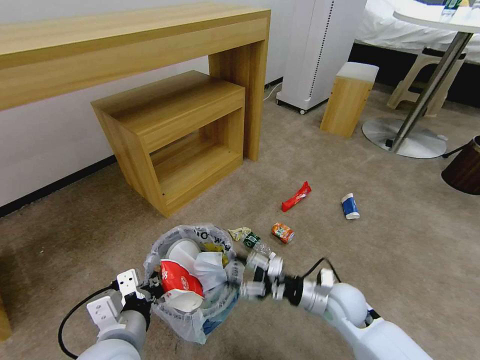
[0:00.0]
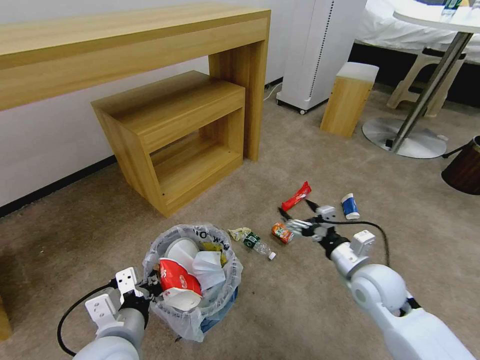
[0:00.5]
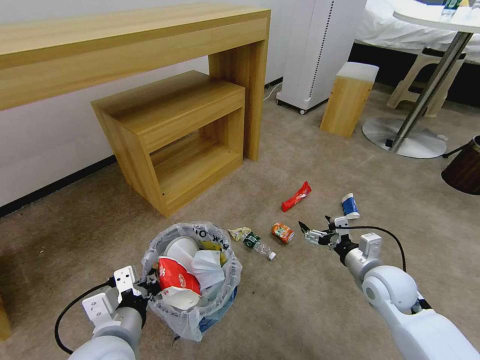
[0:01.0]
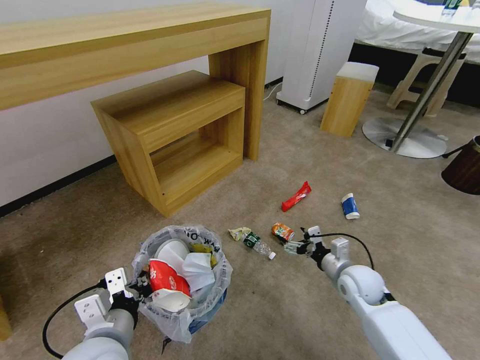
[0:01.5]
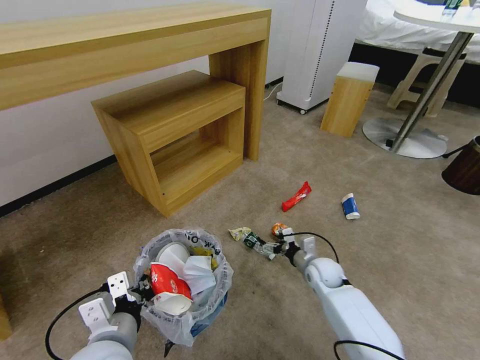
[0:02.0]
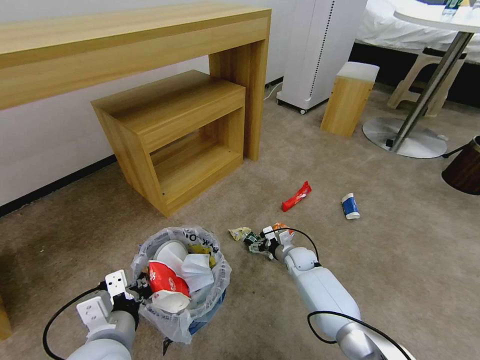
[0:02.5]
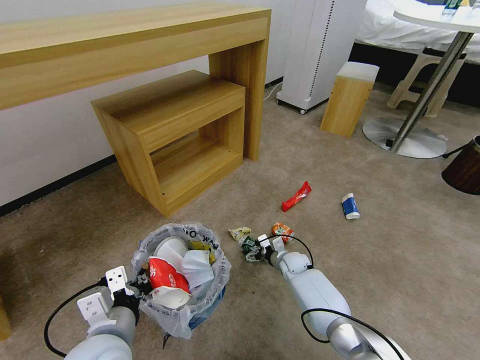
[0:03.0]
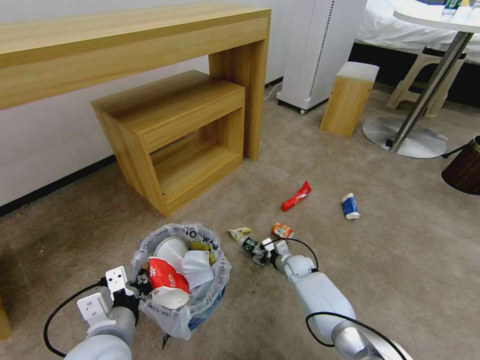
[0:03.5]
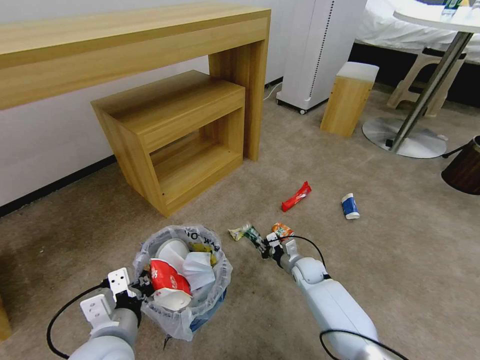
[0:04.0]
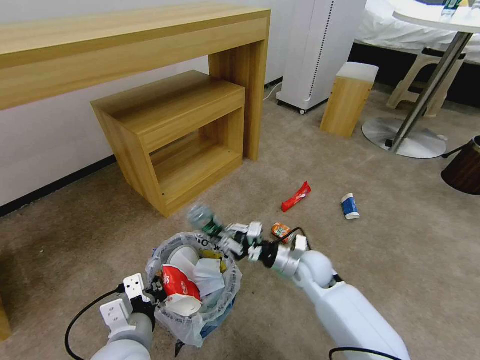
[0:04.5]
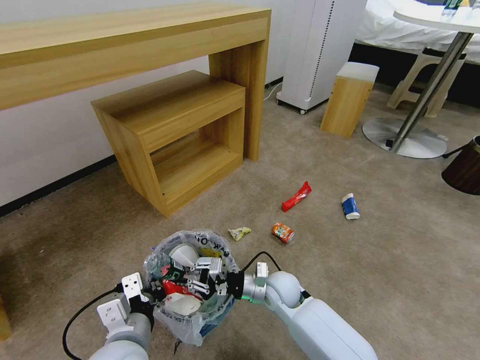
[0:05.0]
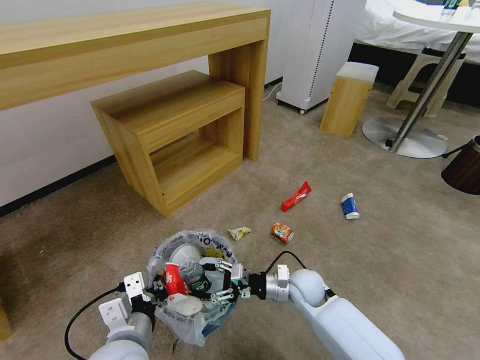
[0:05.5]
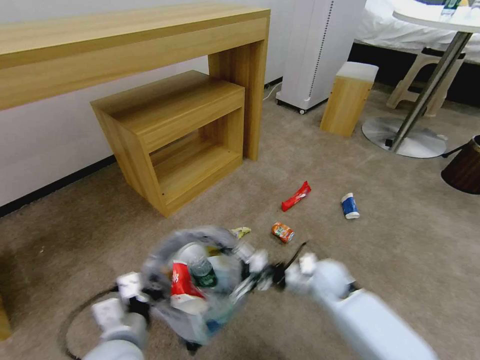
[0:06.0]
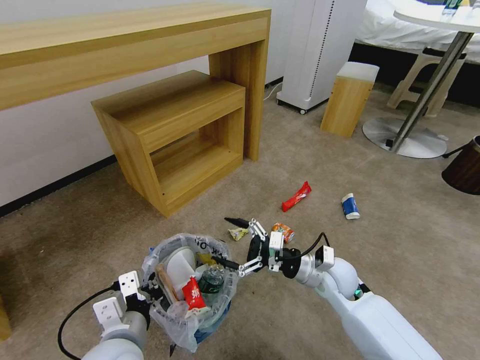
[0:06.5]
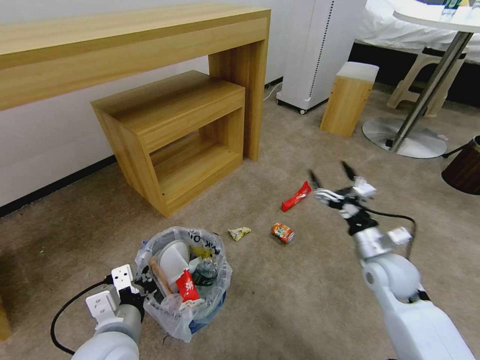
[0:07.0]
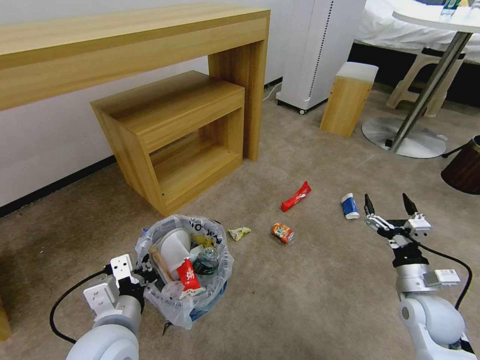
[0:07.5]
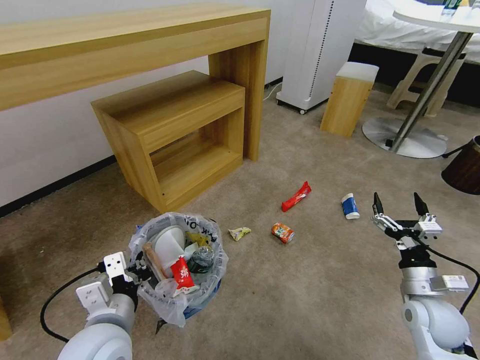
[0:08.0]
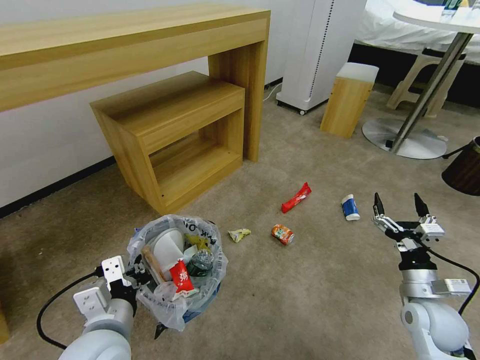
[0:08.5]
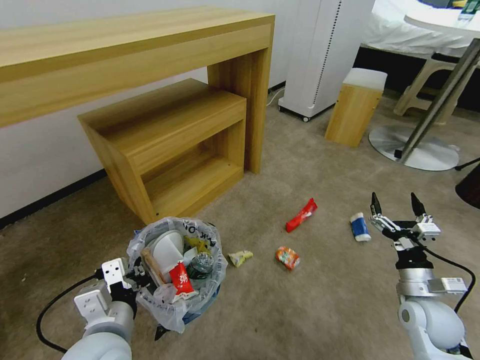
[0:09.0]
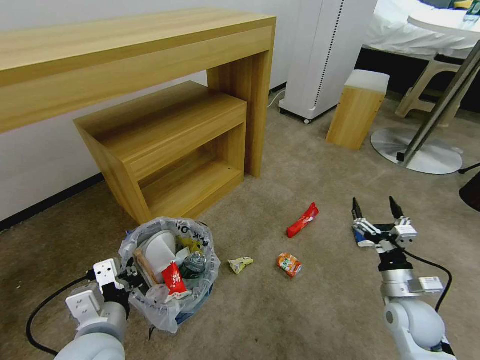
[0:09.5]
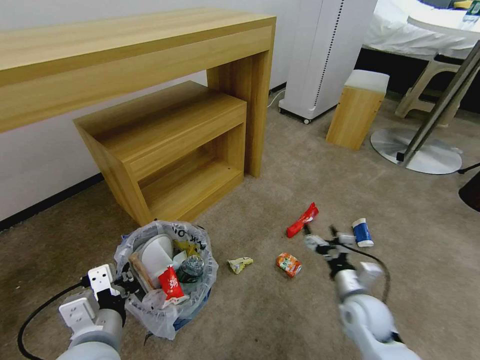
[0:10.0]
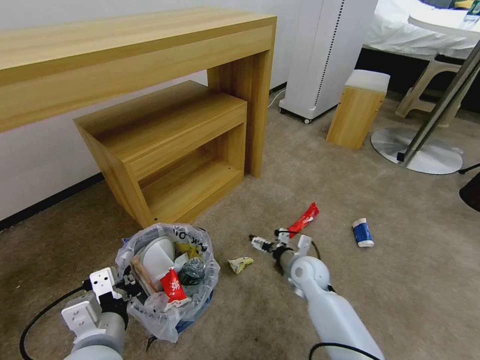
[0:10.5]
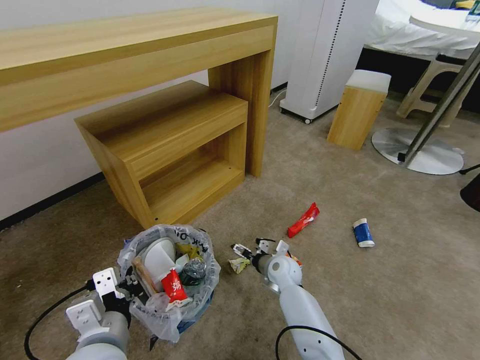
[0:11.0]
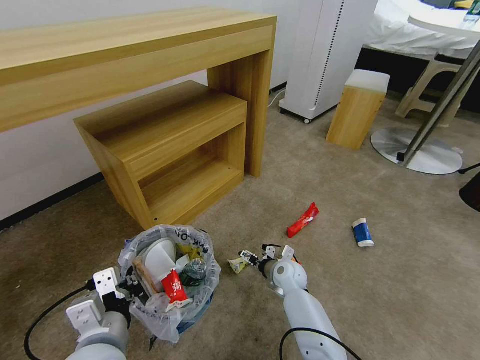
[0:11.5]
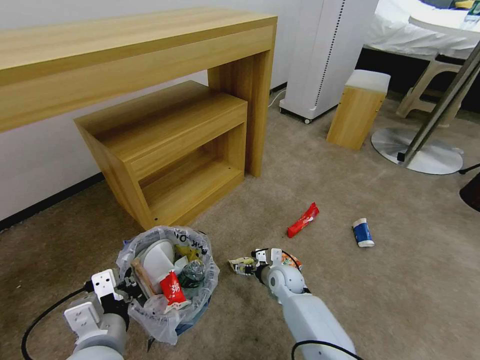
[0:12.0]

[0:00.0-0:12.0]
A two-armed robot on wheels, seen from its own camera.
Task of the whole recording: Pick up the trash bin and place the garbage on the floor into it.
0:00.0 to 0:02.0: The right gripper travels forward and downward by approximately 10 cm, and opens.
0:02.0 to 0:04.0: The right gripper heads downward, covering some 5 cm, and closes.
0:04.0 to 0:06.0: The right gripper moves up and down over some 15 cm, changing direction 2 times, and opens its fingers.
0:06.0 to 0:08.0: The right gripper travels to the right and backward by roughly 20 cm.
0:08.0 to 0:10.0: The right gripper heads to the left, covering roughly 10 cm.
0:10.0 to 0:12.0: The right gripper shifts approximately 20 cm to the left, forward and downward.

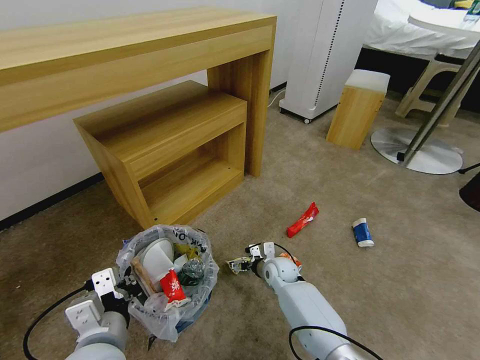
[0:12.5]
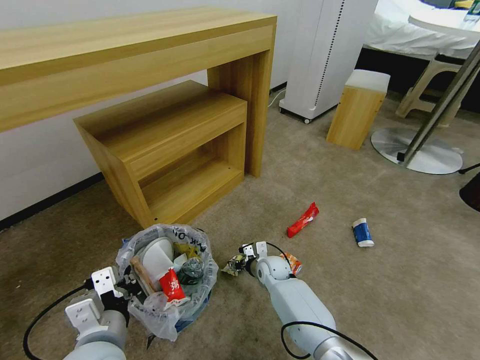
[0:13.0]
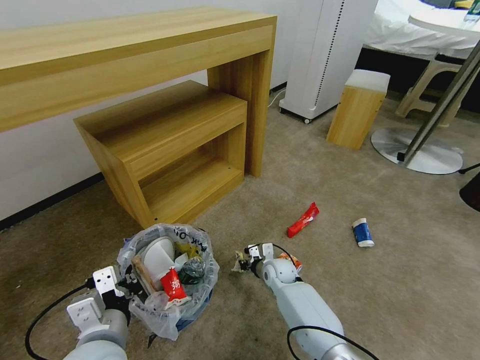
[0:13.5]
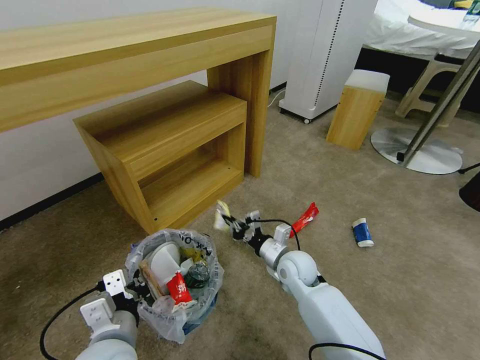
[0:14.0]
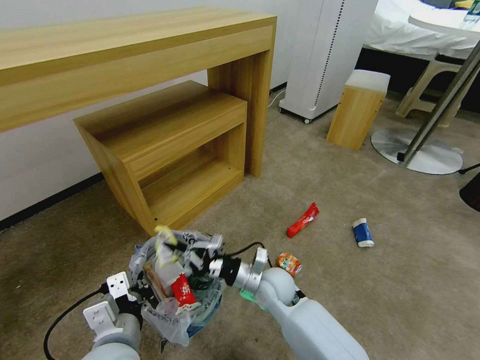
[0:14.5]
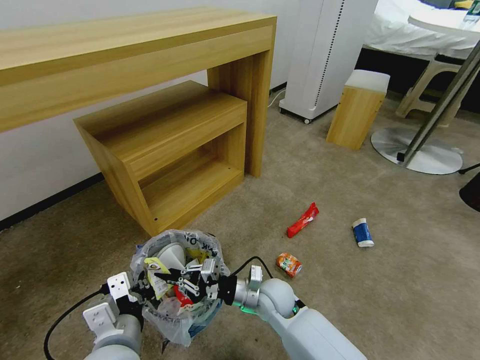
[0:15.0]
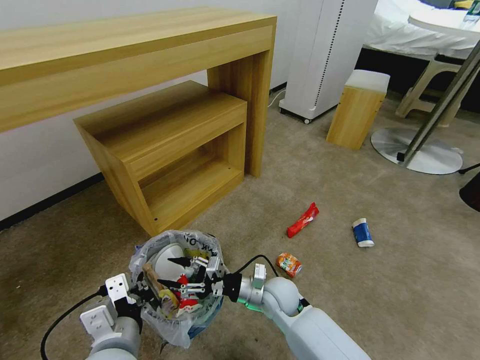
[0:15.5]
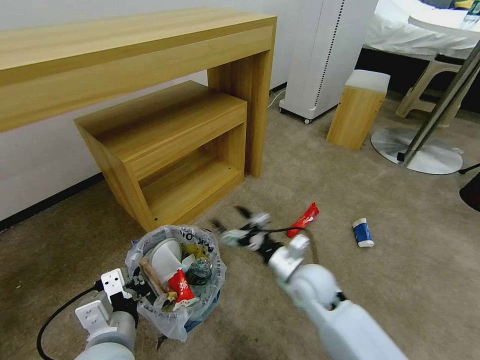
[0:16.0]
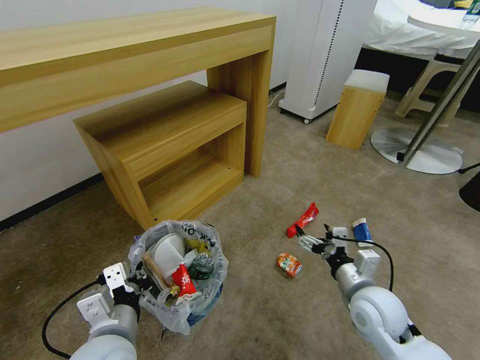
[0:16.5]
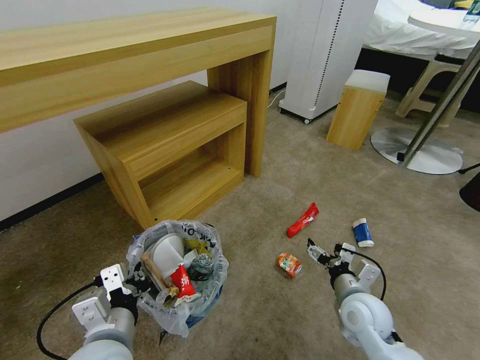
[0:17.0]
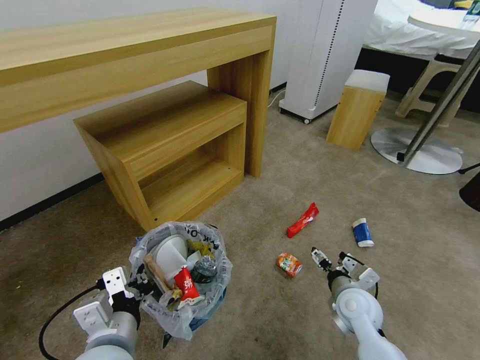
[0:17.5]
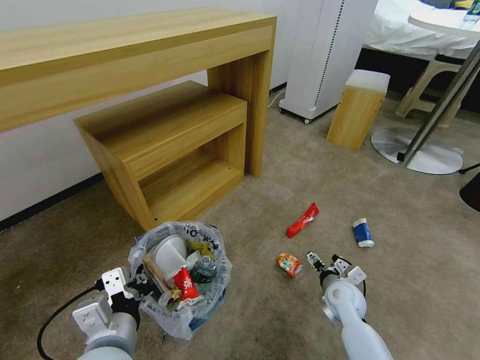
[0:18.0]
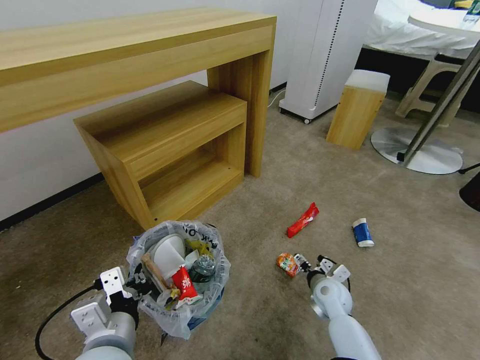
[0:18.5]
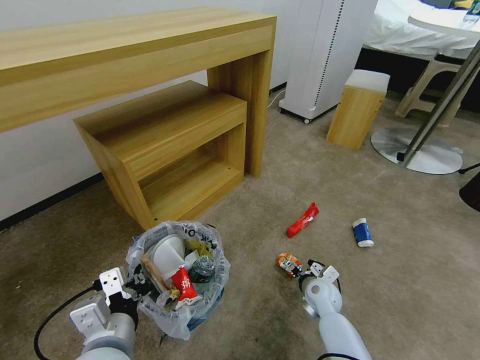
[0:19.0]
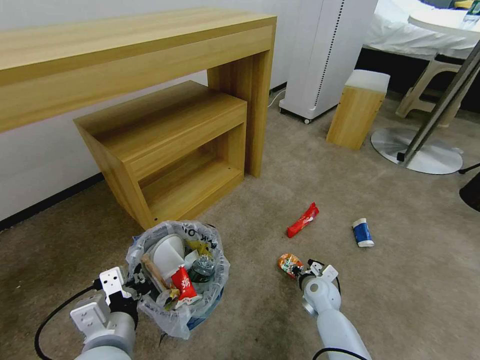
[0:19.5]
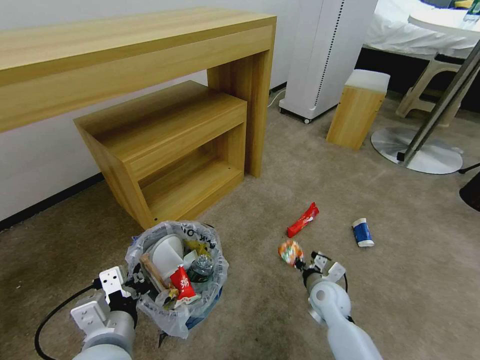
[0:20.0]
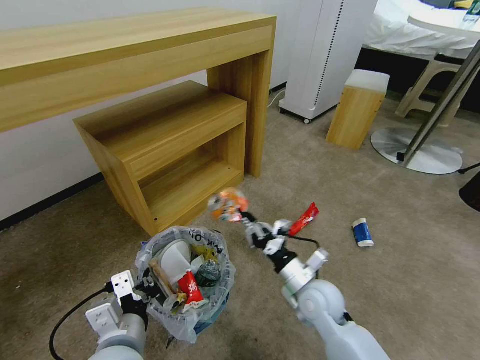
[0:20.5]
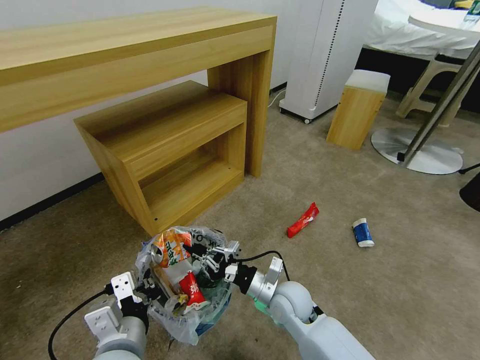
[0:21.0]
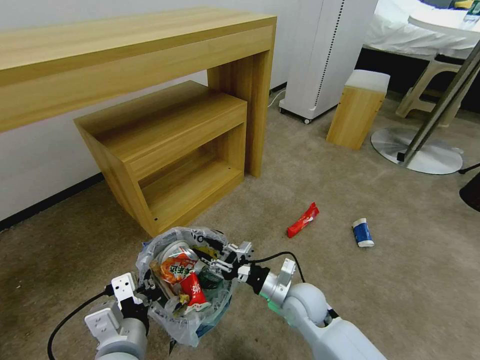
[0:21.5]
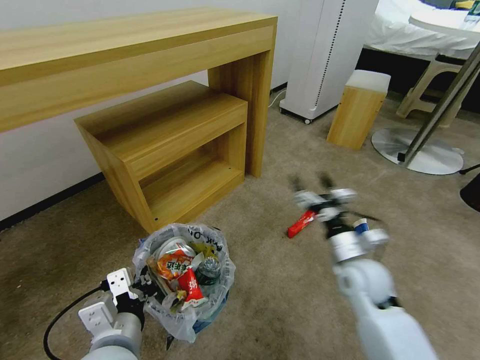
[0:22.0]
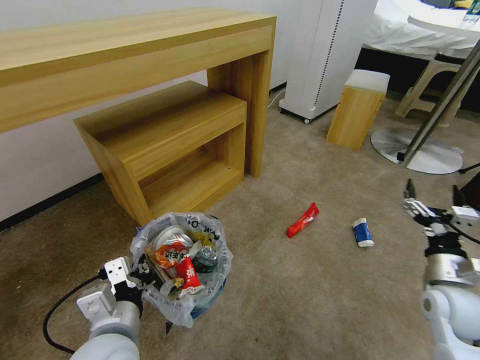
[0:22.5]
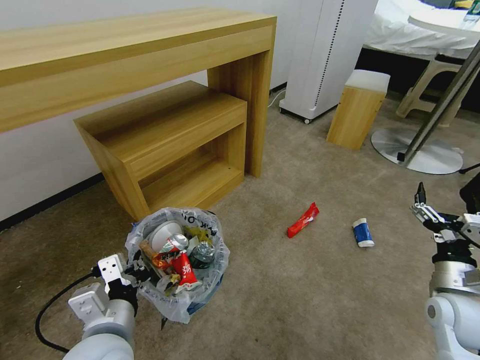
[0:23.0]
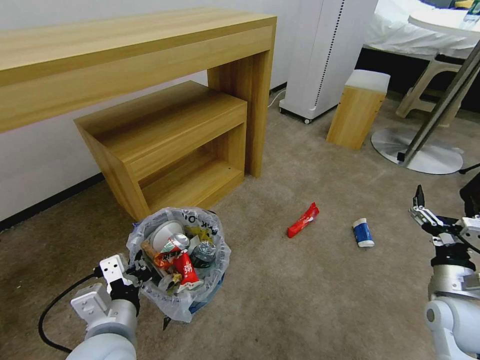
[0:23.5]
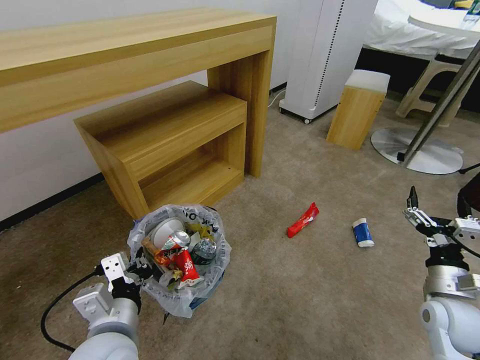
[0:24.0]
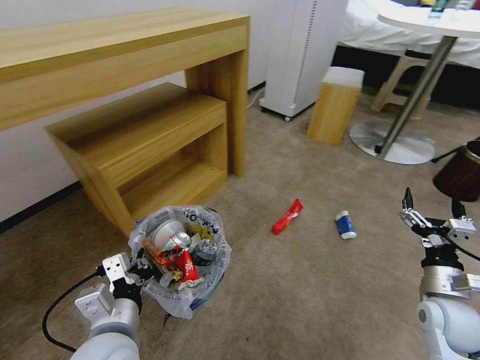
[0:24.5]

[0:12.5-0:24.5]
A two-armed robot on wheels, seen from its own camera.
Task of the whole recording: Pick up the trash bin and place the garbage on the floor into it.
0:12.5 to 0:14.5: The right gripper travels upward and backward by roughly 15 cm, and closes its fingers.
0:14.5 to 0:16.5: The right gripper travels to the right and backward by approximately 20 cm, and opens.
0:16.5 to 0:18.5: The right gripper is displaced downward and forward by some 15 cm.
0:18.5 to 0:20.5: The right gripper is displaced upward and to the left by about 10 cm, and closes up.
0:20.5 to 0:22.5: The right gripper shifts some 25 cm to the right, and opens.

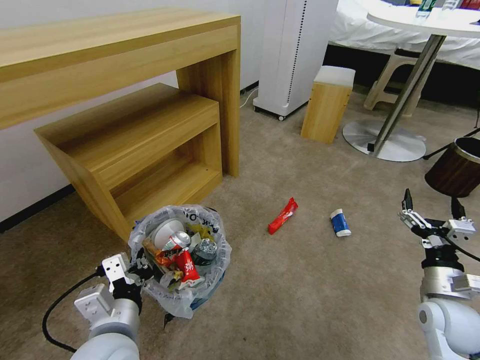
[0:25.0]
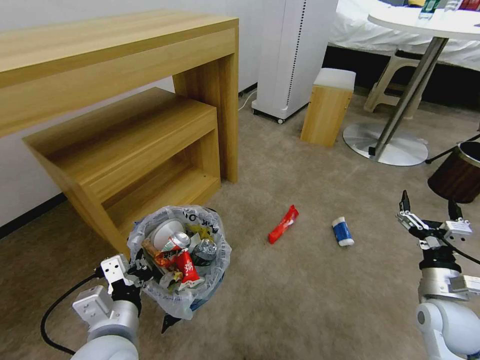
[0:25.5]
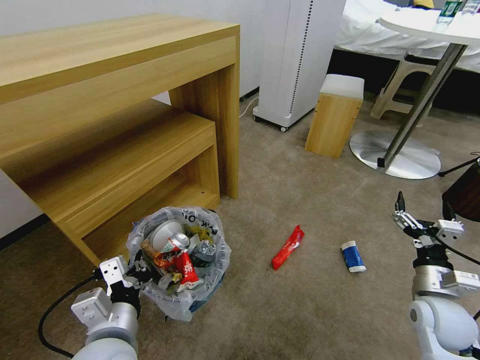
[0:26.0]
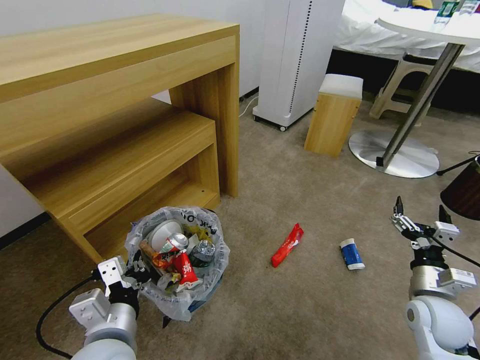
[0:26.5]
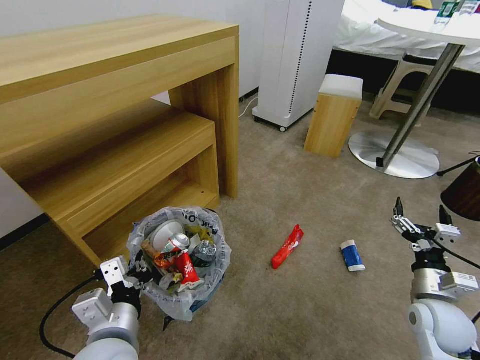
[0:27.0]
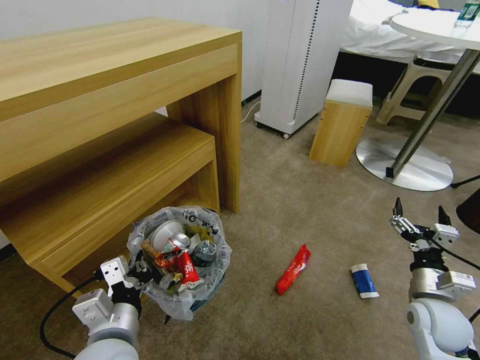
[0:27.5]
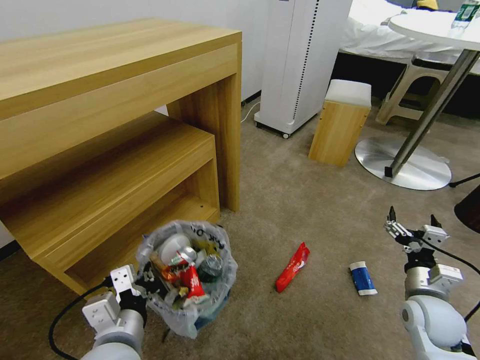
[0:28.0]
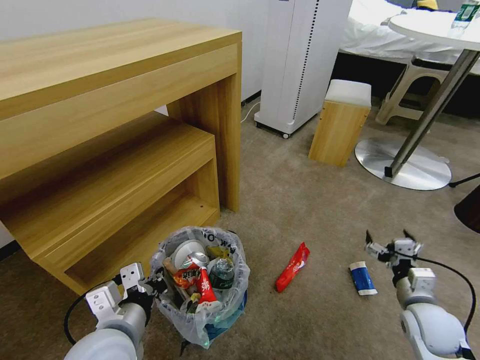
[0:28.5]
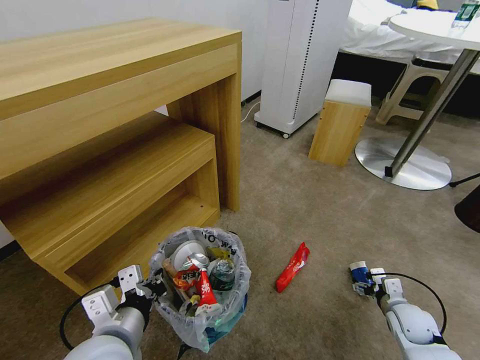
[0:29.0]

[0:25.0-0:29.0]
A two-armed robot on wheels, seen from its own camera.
Task of the whole recording: Pick up the trash bin and place the garbage on the floor into it.
0:27.0 to 0:29.0: The right gripper is displaced downward by approximately 10 cm.
